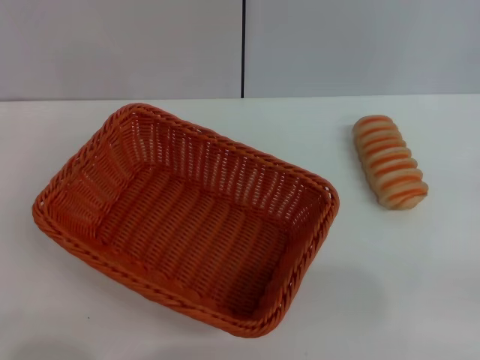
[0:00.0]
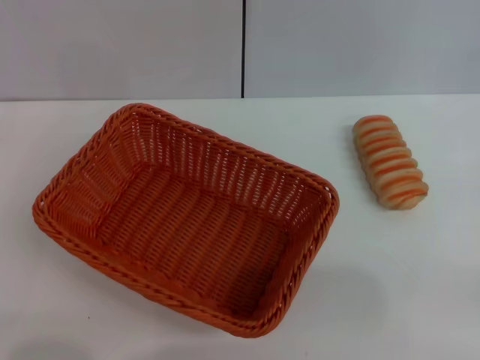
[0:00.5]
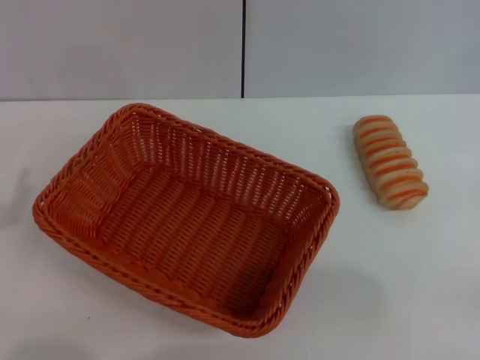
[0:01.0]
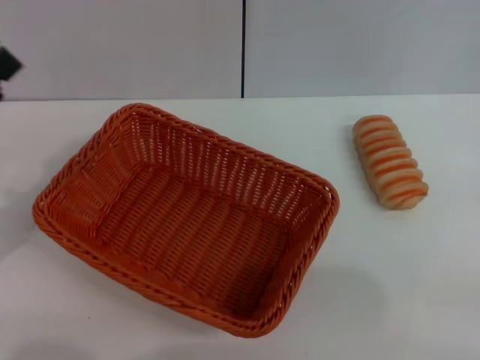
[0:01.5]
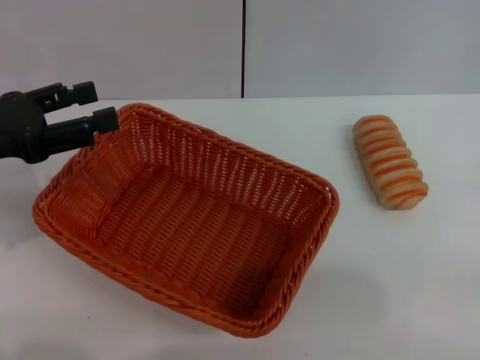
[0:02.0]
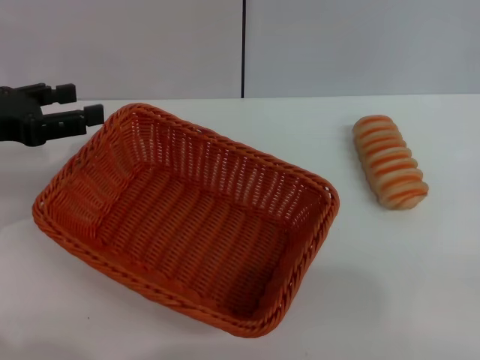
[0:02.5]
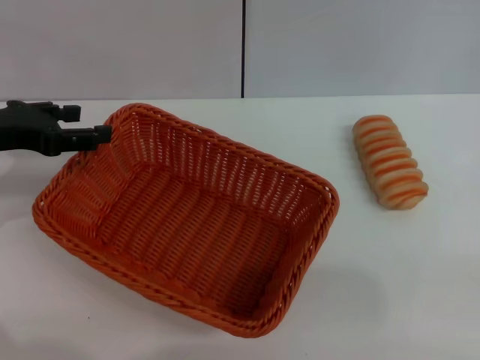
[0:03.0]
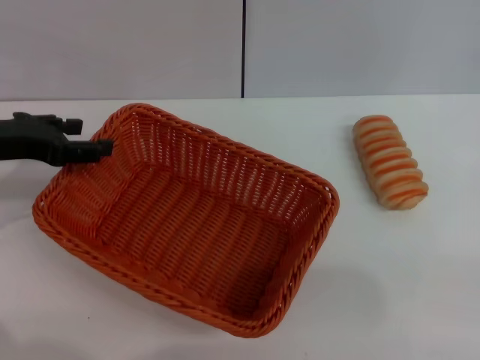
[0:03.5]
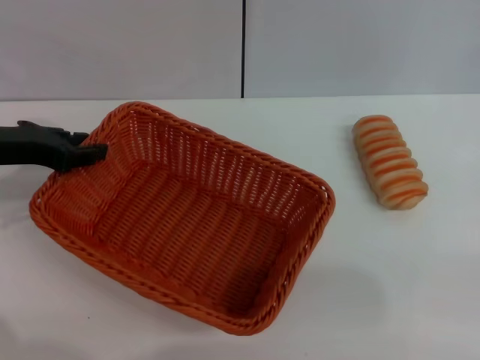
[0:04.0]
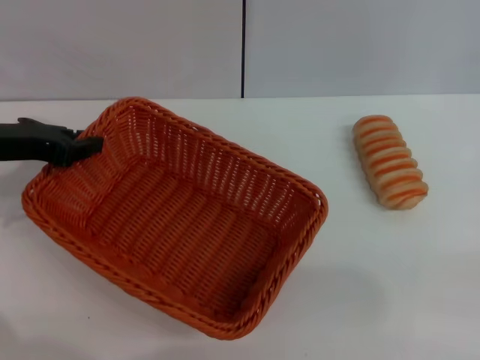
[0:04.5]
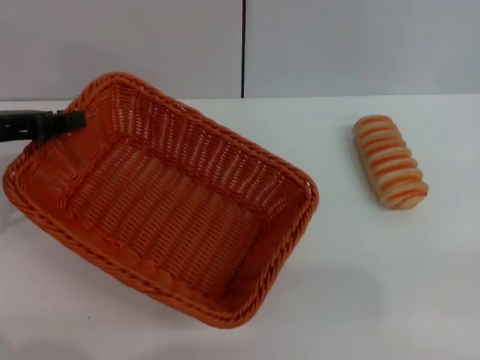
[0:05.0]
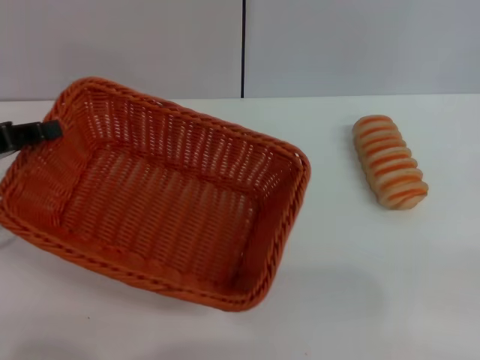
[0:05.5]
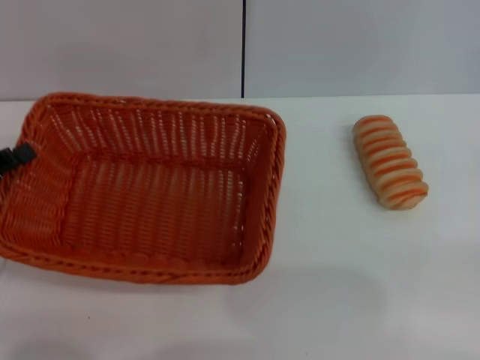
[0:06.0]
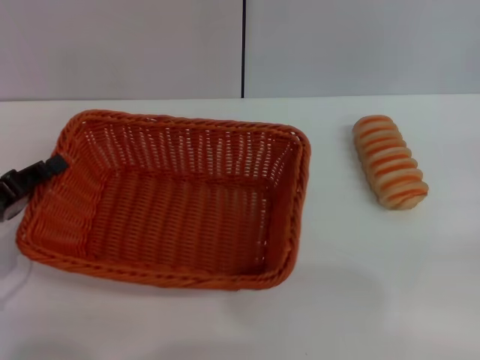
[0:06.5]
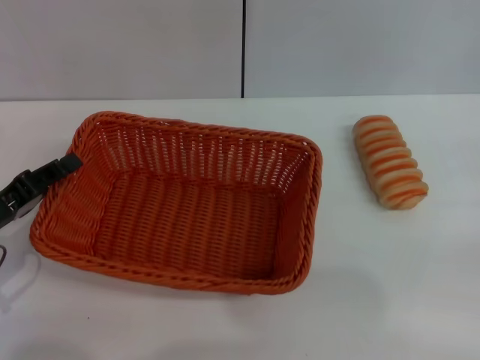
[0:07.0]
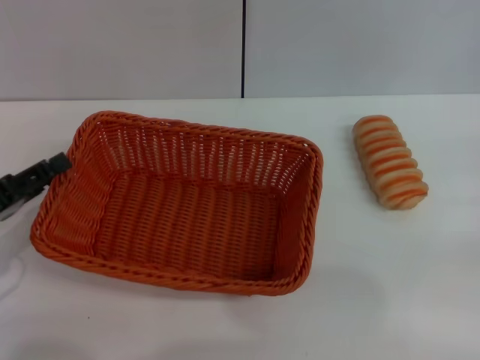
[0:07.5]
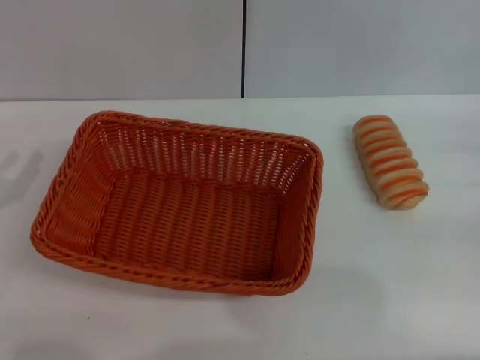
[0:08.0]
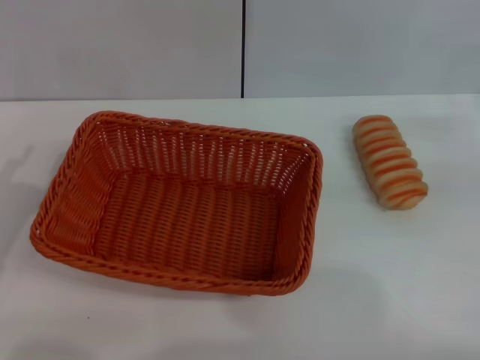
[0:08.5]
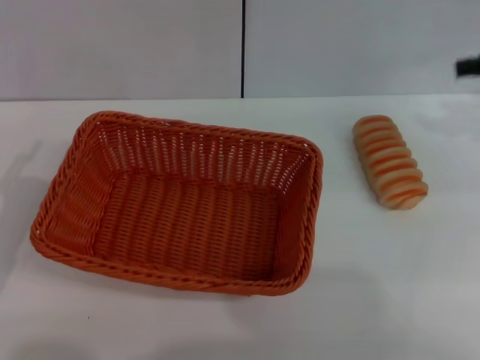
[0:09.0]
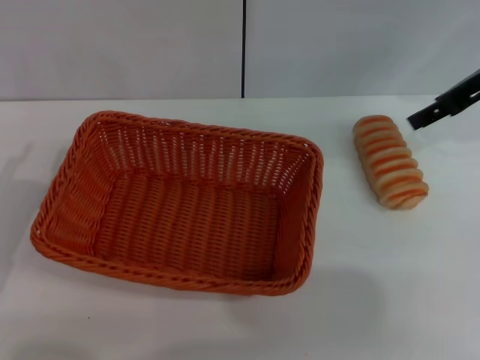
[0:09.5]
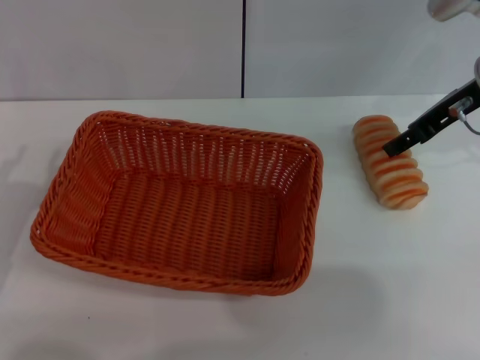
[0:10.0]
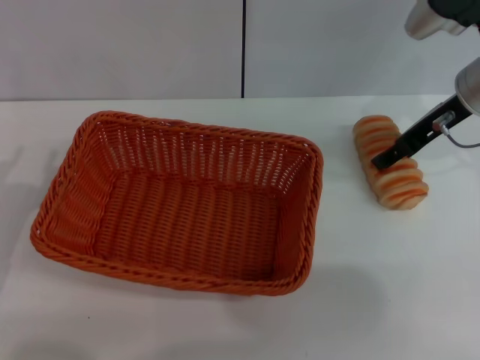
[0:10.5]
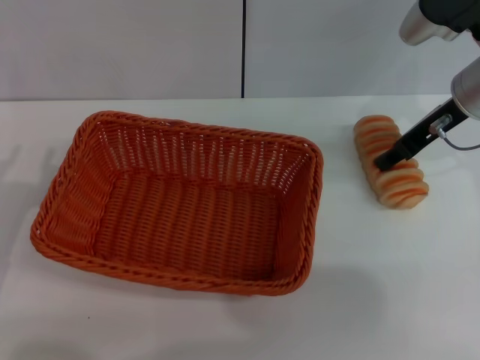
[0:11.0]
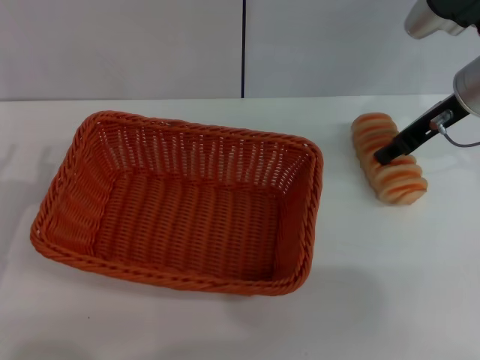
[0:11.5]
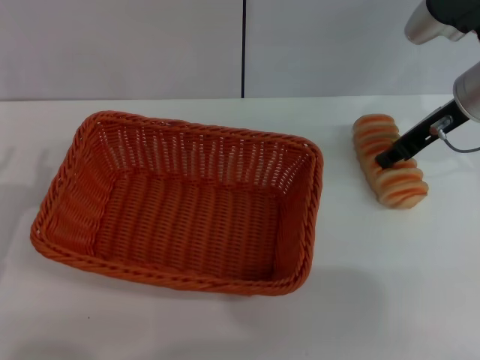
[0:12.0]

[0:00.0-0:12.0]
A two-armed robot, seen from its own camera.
Step, 0:00.0 to 0:05.5: Pick up the light basket with the left gripper.
Step, 0:06.0 to 0:07.5: Place the light basket in the center of view with the left gripper.
0:00.0 to 0:02.0: The left gripper shifts approximately 15 cm upward and forward.
0:02.0 to 0:04.0: The left gripper is displaced forward by roughly 5 cm.
0:04.0 to 0:06.0: The left gripper is displaced backward, to the left and downward by approximately 10 cm, and closes.
0:06.0 to 0:08.0: The left gripper opens its fingers.
0:08.0 to 0:10.0: The right gripper shifts about 25 cm to the left, forward and upward.
0:10.0 to 0:12.0: The right gripper closes its fingers.

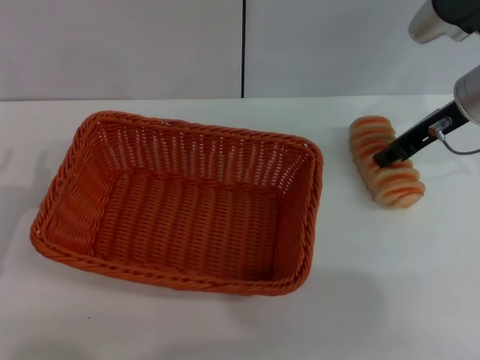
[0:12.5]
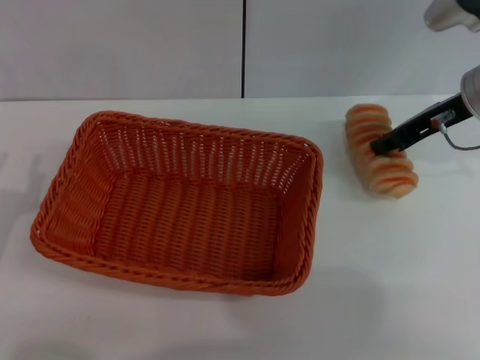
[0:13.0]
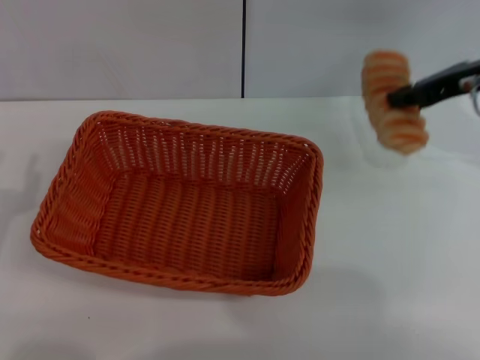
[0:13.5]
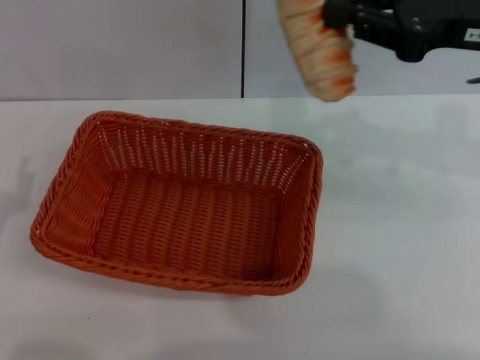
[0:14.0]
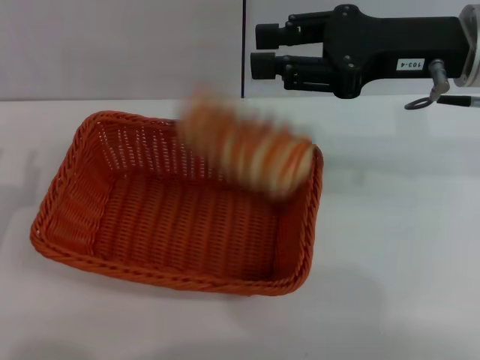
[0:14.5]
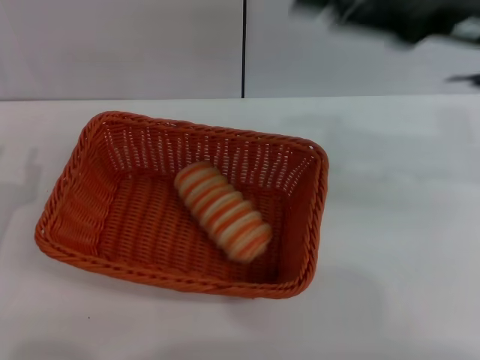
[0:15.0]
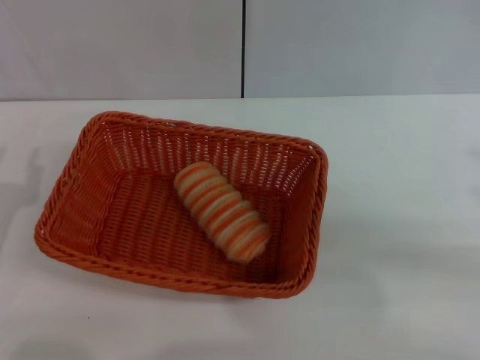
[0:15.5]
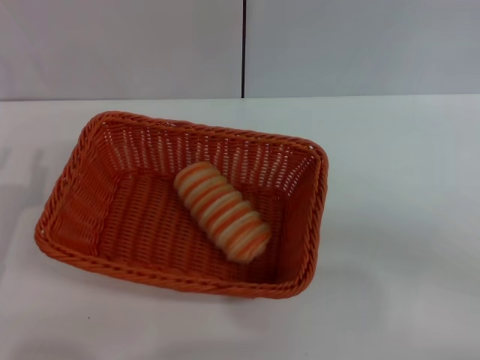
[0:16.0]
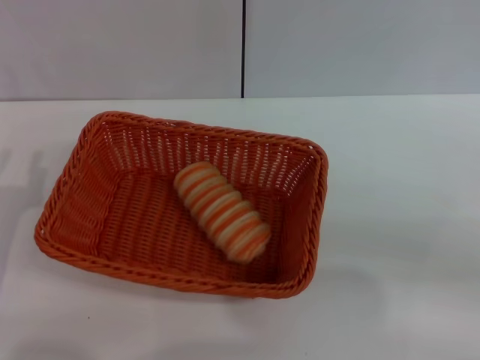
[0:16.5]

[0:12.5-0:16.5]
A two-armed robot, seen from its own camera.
Step, 0:14.0 to 0:14.5: Place the long bread into the light basket with the right gripper.
0:12.5 to 0:14.5: The right gripper is displaced upward and backward by some 10 cm.
0:14.5 to 0:16.5: The right gripper moves to the right and backward, roughly 25 cm, and opens.

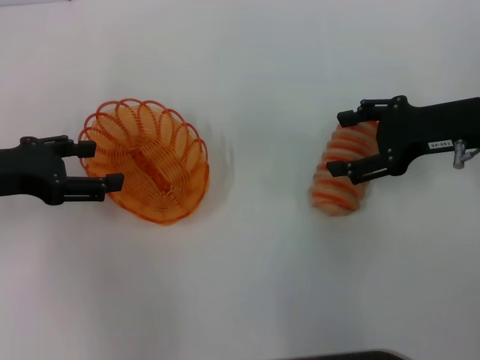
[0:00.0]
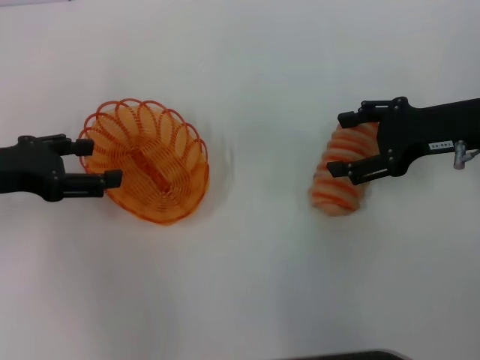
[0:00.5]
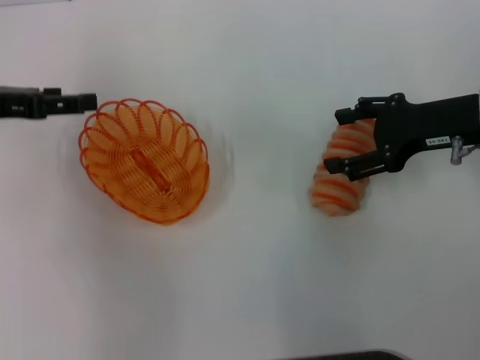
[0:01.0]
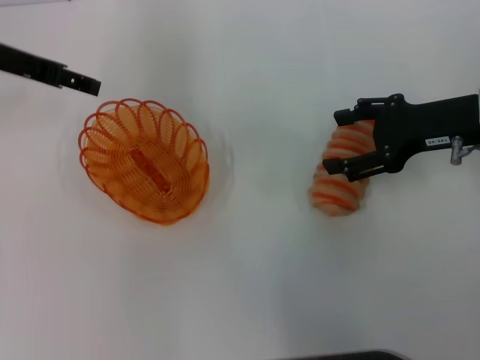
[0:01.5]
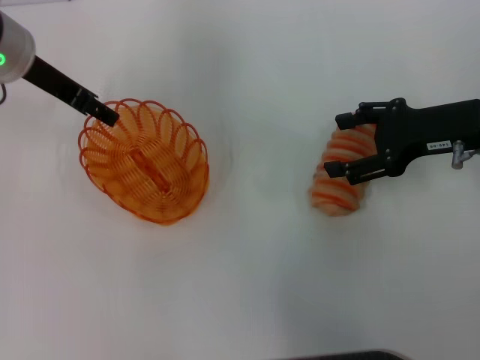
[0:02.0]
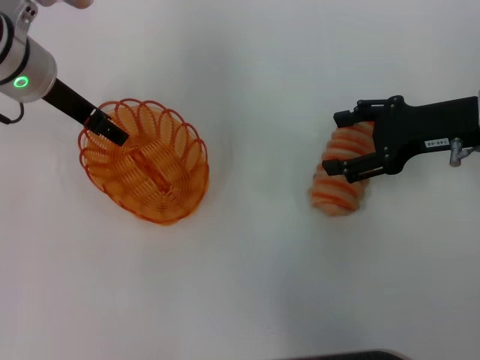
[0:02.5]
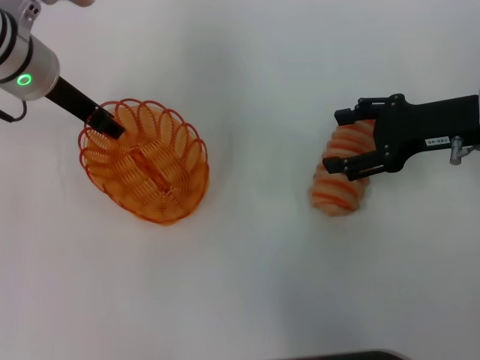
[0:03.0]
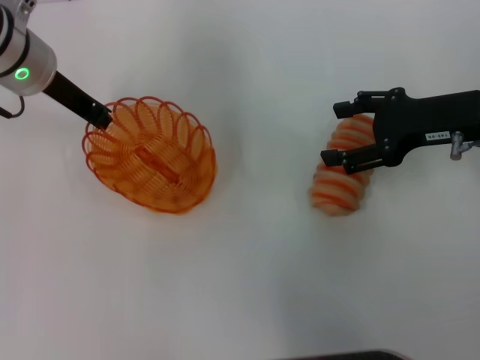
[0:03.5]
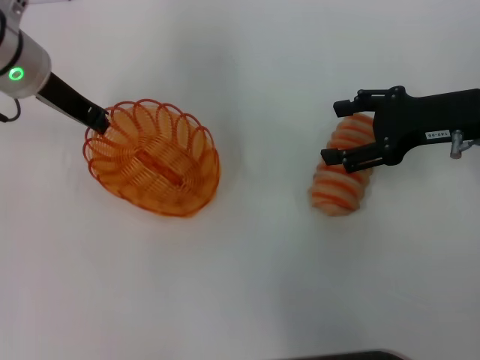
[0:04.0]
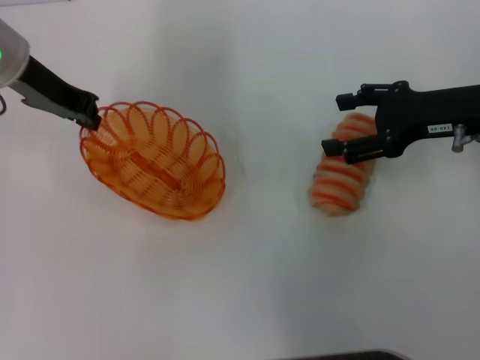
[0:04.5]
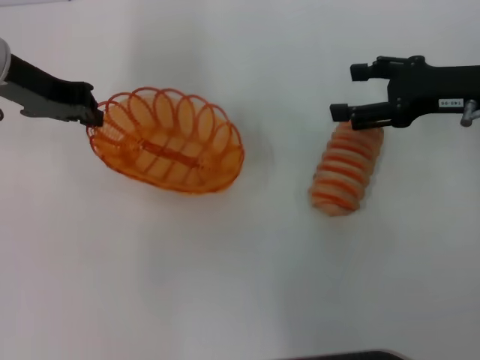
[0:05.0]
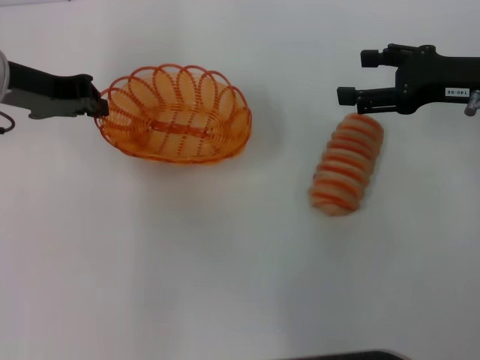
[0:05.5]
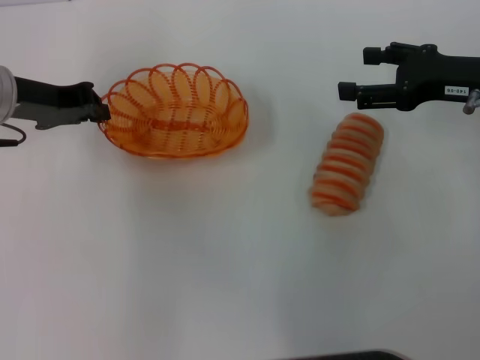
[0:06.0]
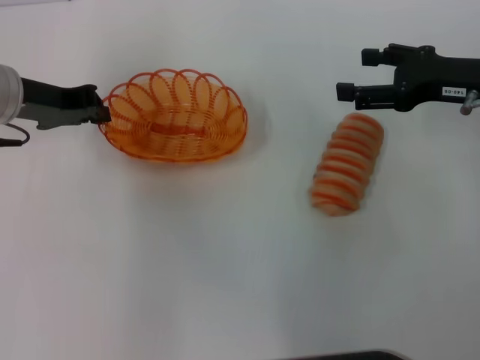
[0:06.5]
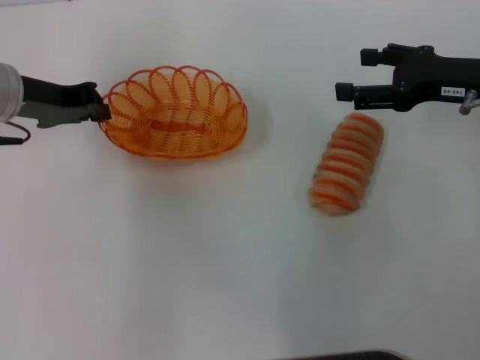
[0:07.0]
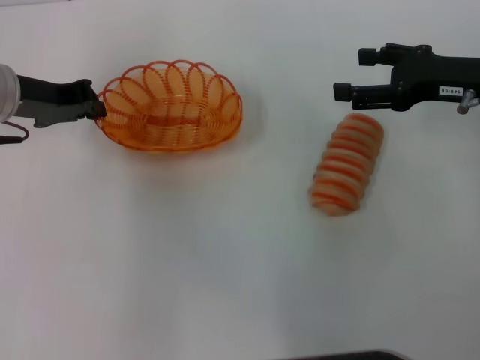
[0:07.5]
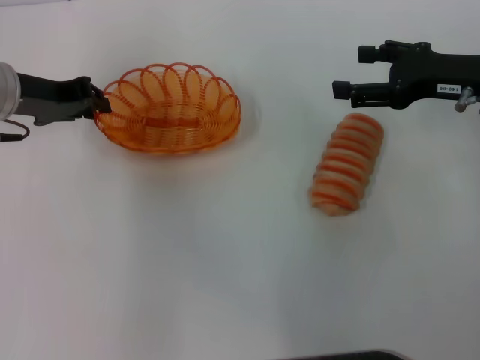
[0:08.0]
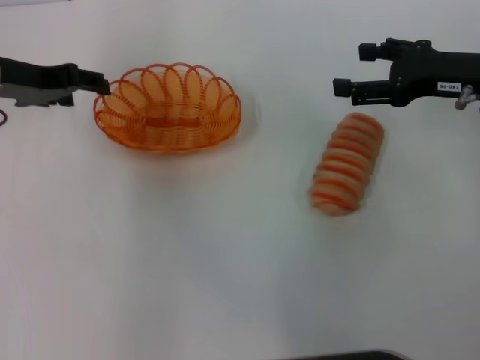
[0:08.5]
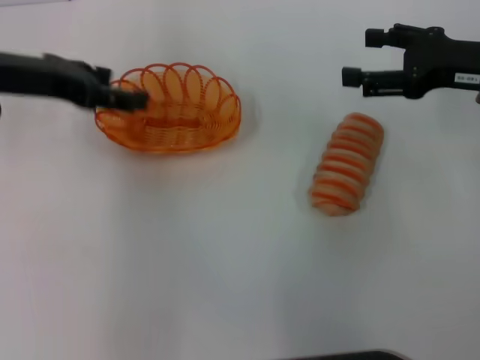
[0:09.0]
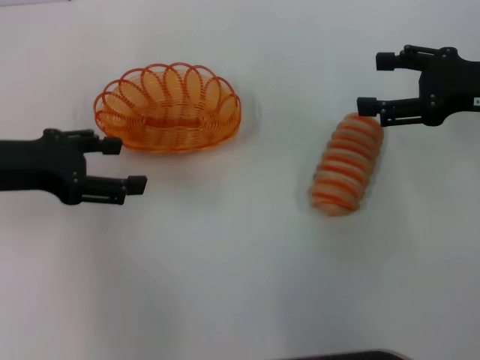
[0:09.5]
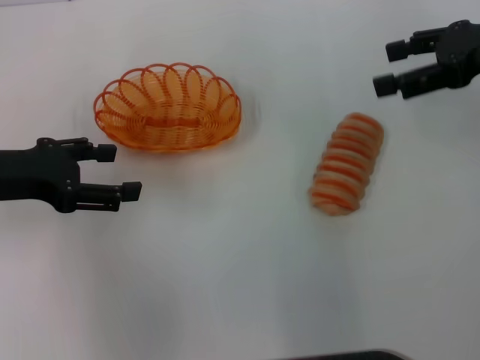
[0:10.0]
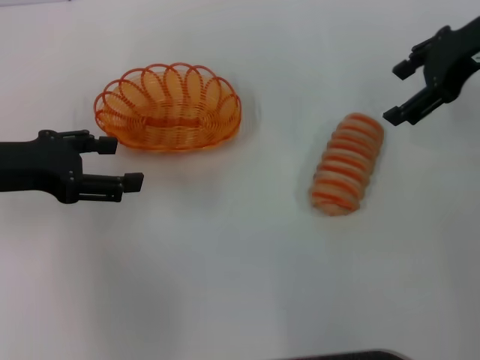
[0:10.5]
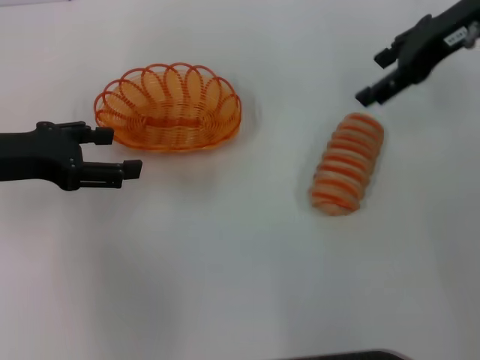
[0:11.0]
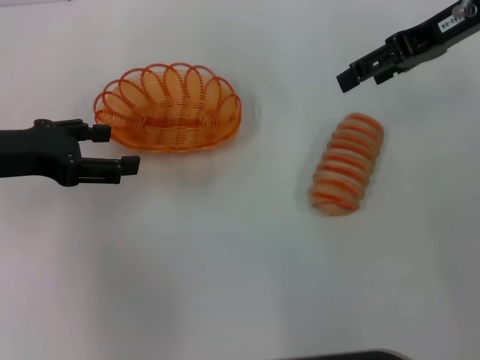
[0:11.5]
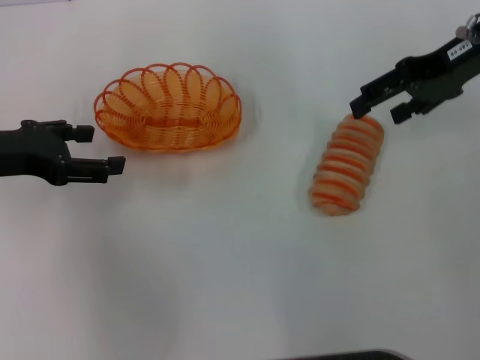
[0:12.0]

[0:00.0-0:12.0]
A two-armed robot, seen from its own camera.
Step, 0:00.0 to 0:04.5: Pick up the basket with the left gripper.
Step, 0:05.0 to 0:08.5: Place the basket in the center of view with the left gripper.
0:00.0 to 0:02.0: The left gripper travels forward, to the right and upward by approximately 15 cm.
0:02.0 to 0:04.0: The left gripper closes.
0:04.0 to 0:06.0: The left gripper changes place by about 5 cm.
0:06.0 to 0:08.0: Neither gripper changes place.
0:08.0 to 0:10.0: The left gripper travels backward by roughly 10 cm, and opens. The right gripper goes some 5 cm upward.
0:10.0 to 0:12.0: The right gripper shifts by approximately 5 cm.
